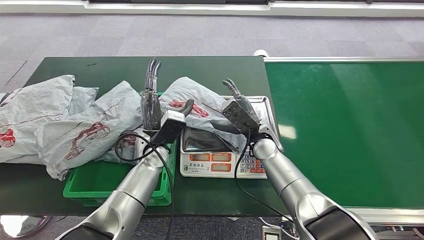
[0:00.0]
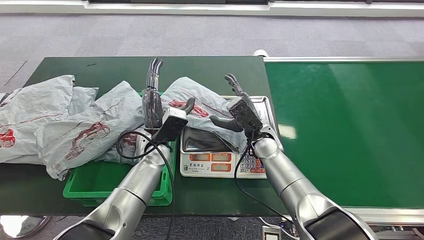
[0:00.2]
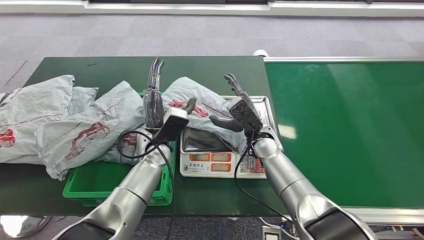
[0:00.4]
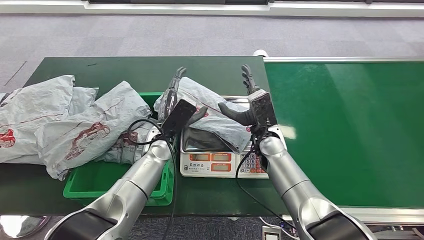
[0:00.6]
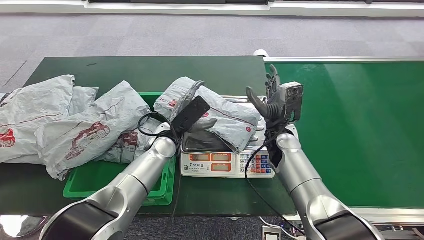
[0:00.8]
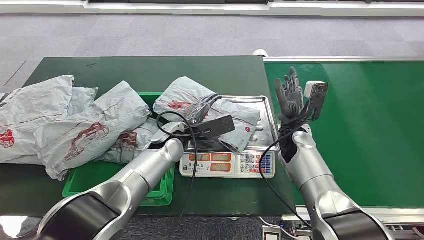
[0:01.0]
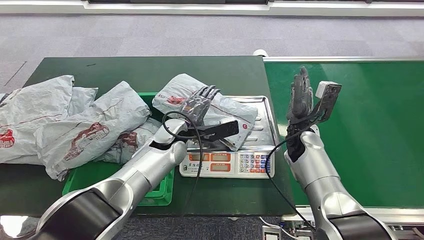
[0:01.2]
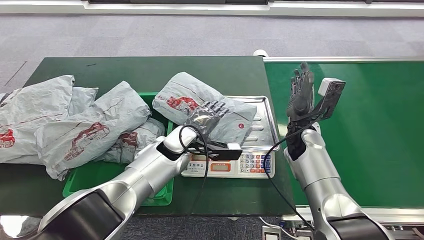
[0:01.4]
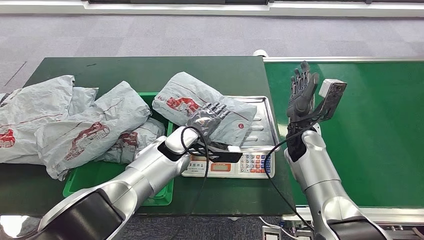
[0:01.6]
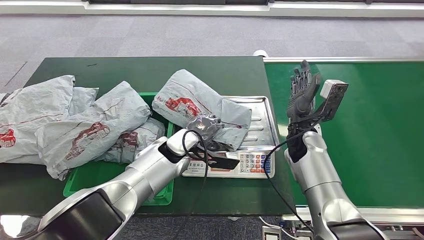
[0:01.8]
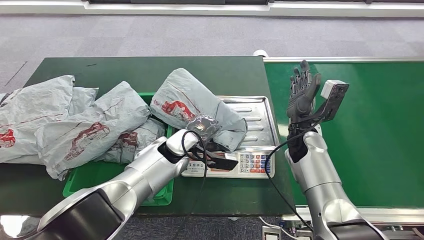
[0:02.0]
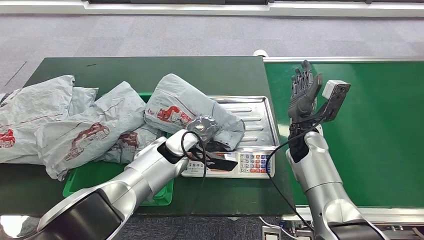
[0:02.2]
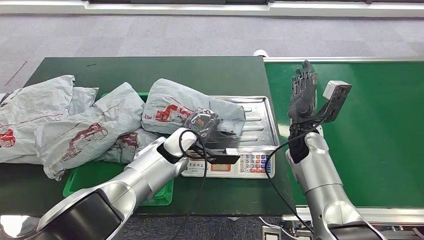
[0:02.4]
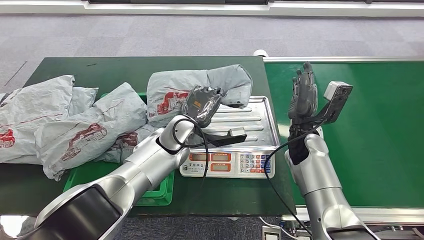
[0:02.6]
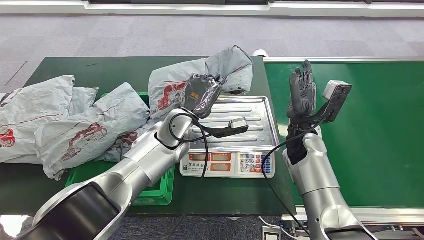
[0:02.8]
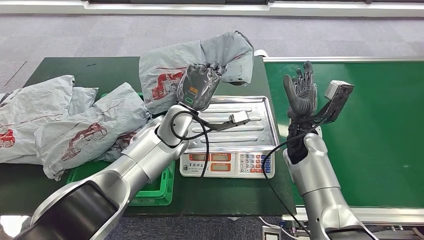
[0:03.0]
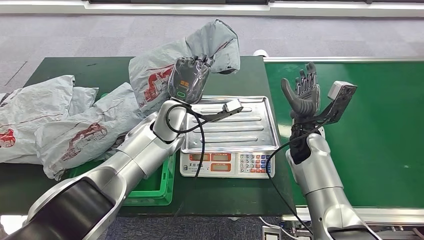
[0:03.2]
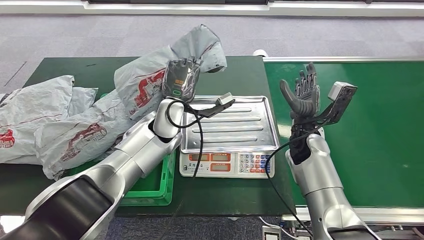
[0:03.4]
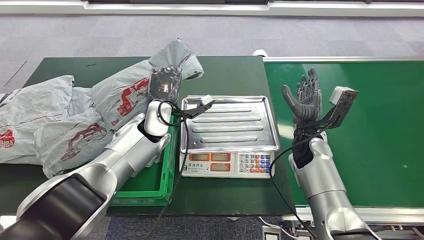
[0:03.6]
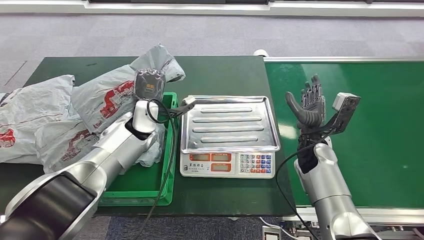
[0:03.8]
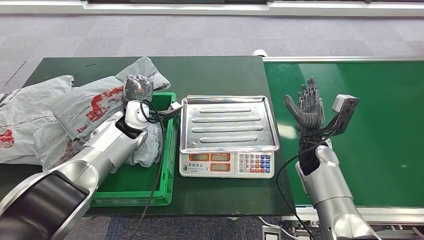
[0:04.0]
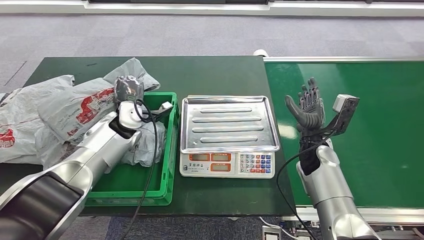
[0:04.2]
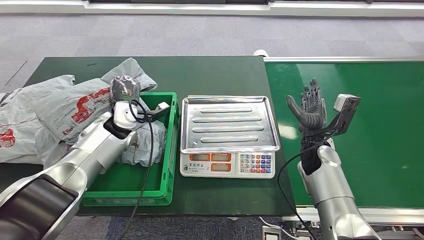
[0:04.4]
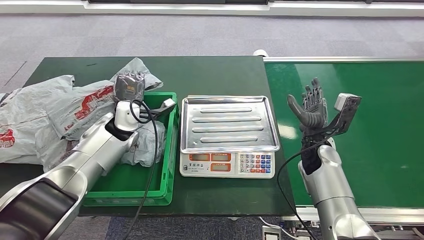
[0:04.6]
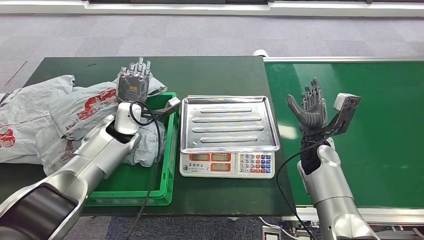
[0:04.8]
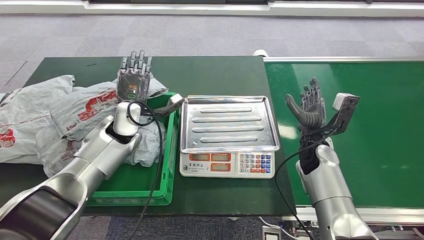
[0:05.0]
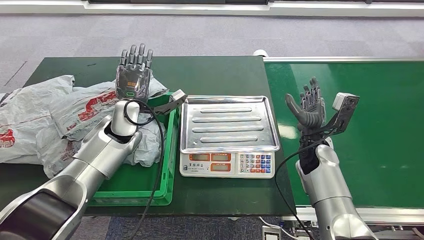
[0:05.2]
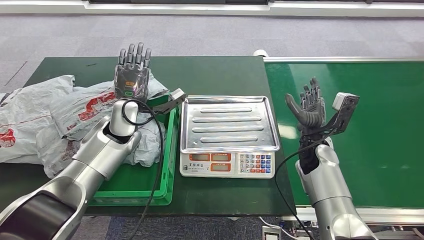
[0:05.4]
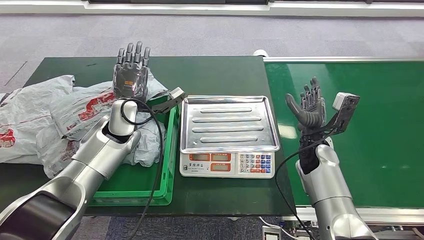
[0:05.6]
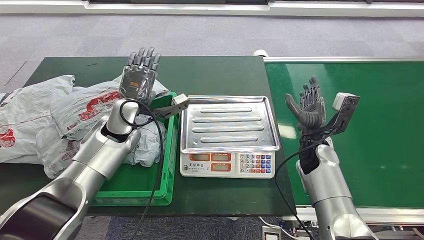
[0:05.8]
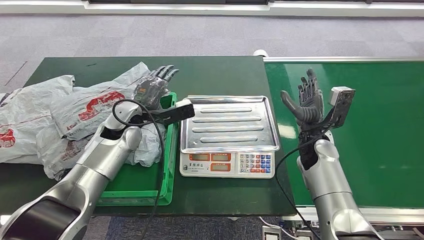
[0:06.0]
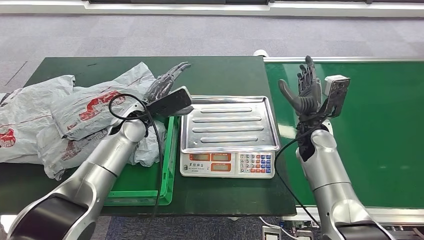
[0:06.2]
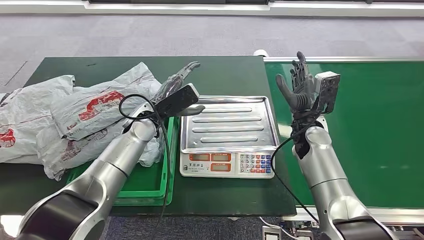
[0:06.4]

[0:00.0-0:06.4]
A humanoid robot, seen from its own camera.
Step, 0:01.6 to 0:03.8: Pick up the parcel from the inbound machine.
Step, 0:04.0 to 0:06.2: Place the parcel into the delivery box.
0:04.8 to 0:06.4: The left hand goes about 5 cm to the right. The right hand ends up about 5 cm from where it was.
